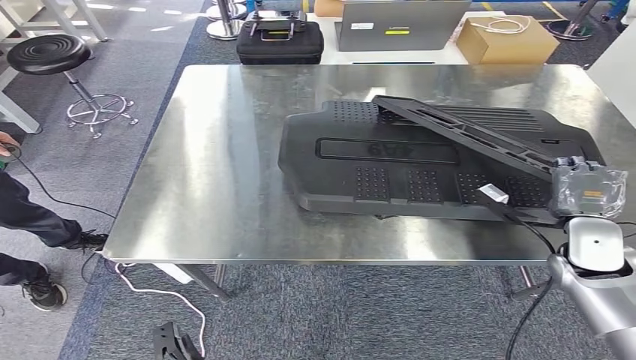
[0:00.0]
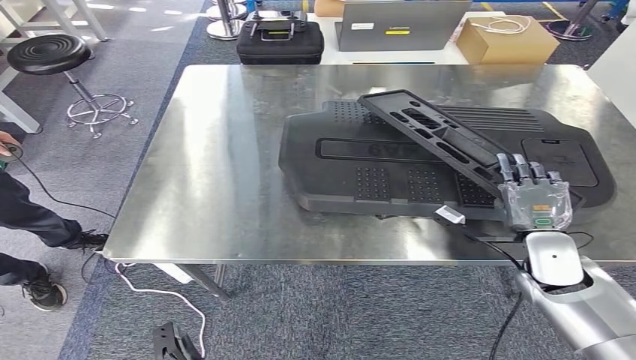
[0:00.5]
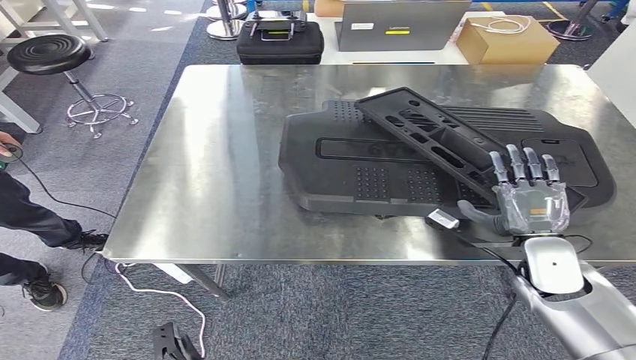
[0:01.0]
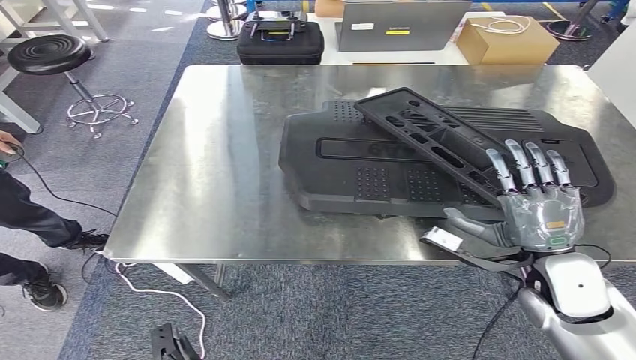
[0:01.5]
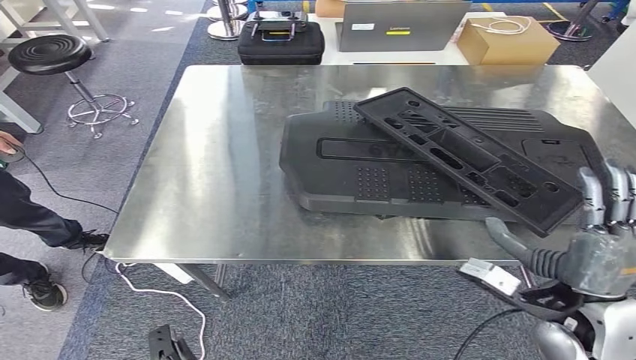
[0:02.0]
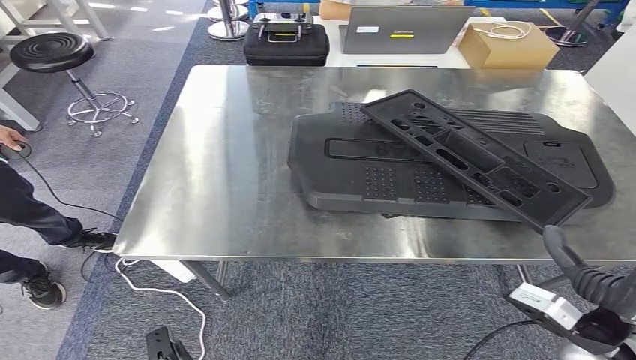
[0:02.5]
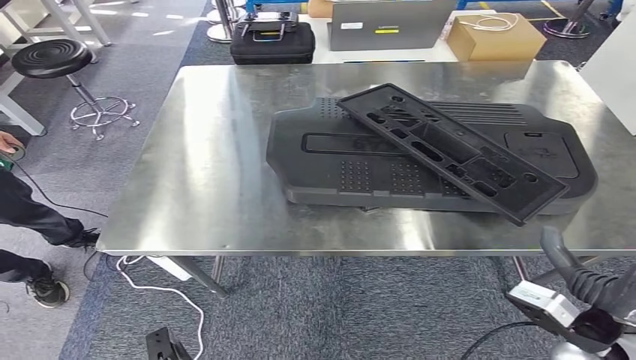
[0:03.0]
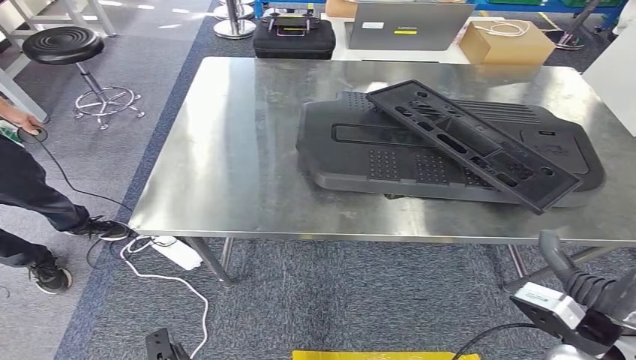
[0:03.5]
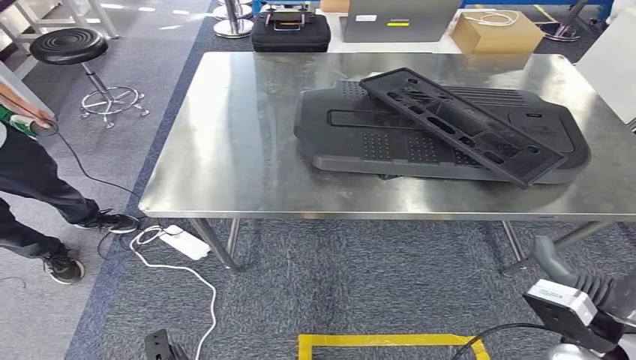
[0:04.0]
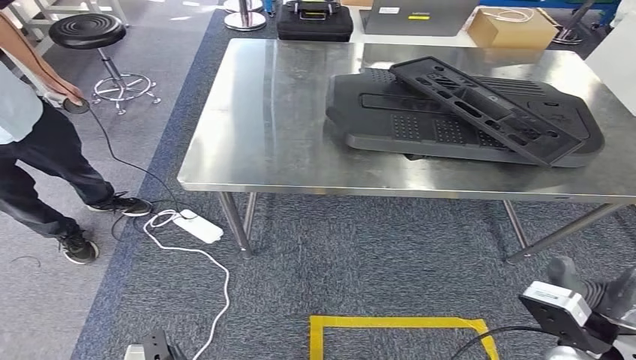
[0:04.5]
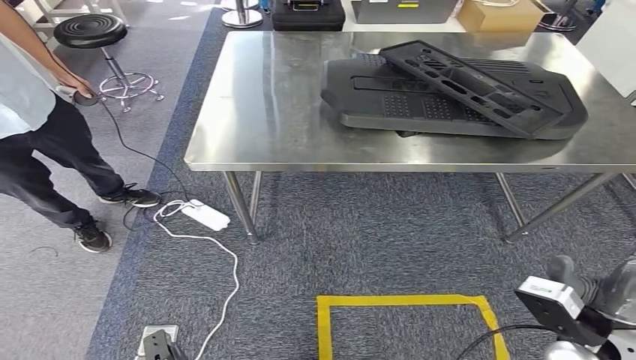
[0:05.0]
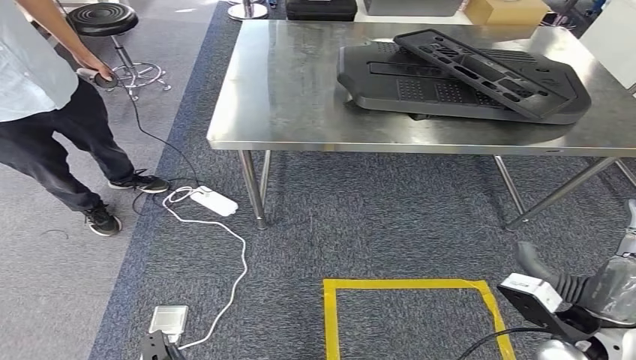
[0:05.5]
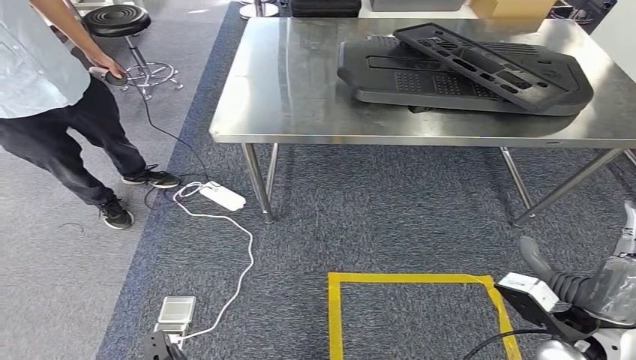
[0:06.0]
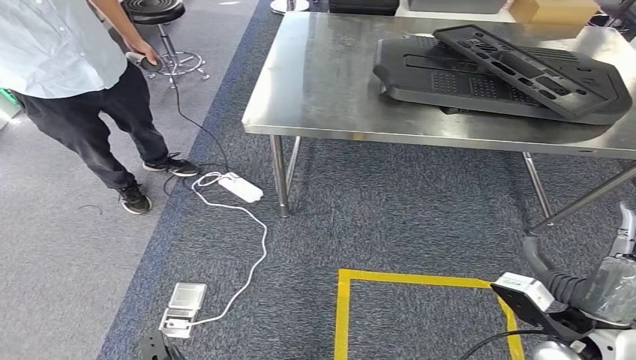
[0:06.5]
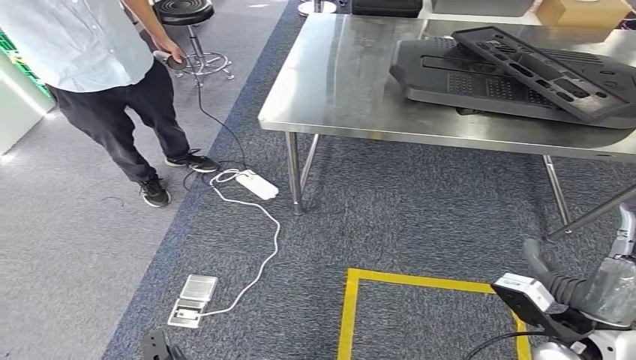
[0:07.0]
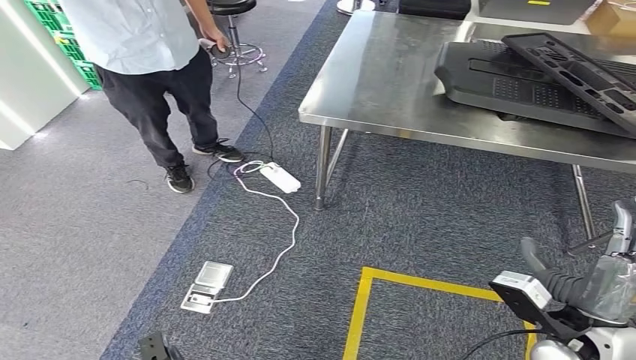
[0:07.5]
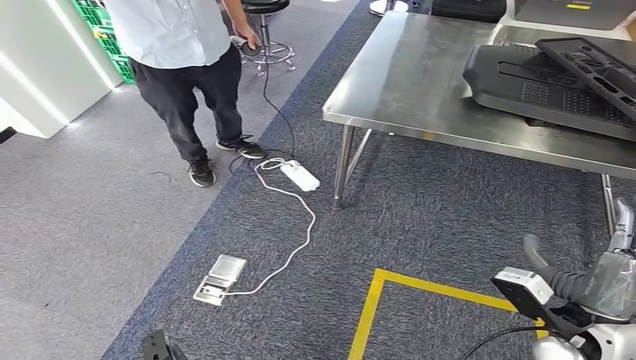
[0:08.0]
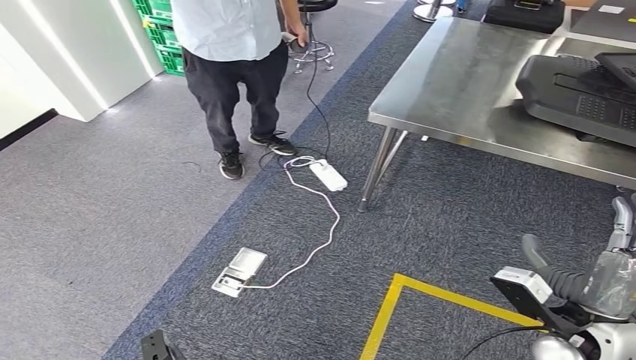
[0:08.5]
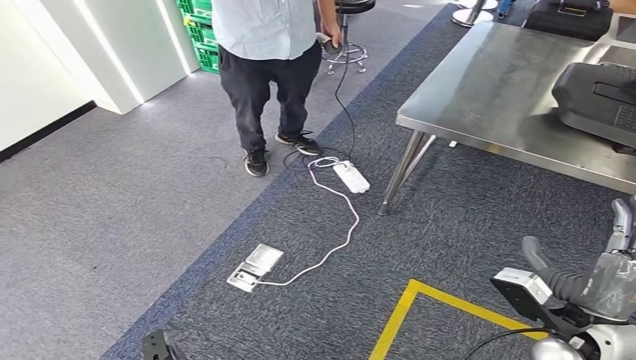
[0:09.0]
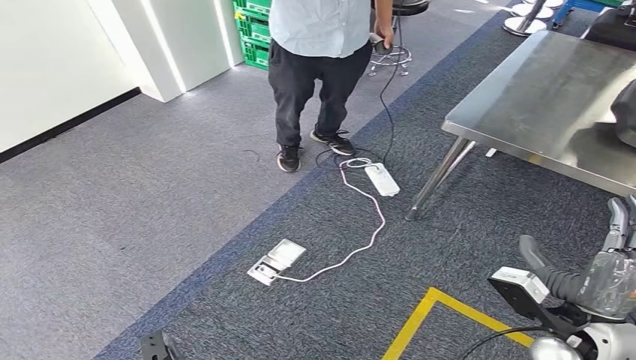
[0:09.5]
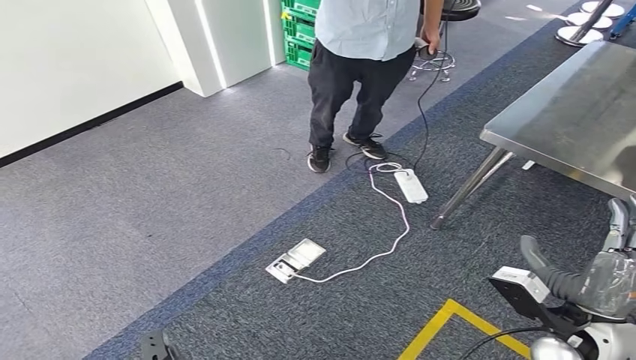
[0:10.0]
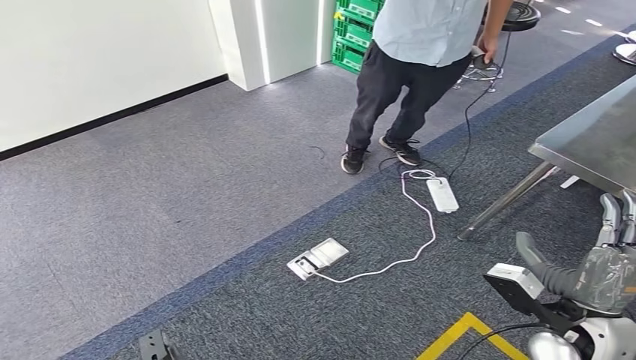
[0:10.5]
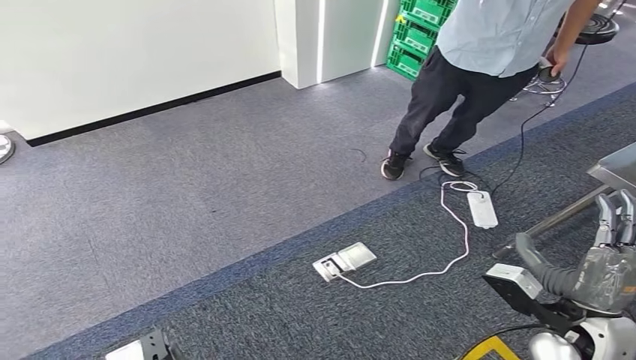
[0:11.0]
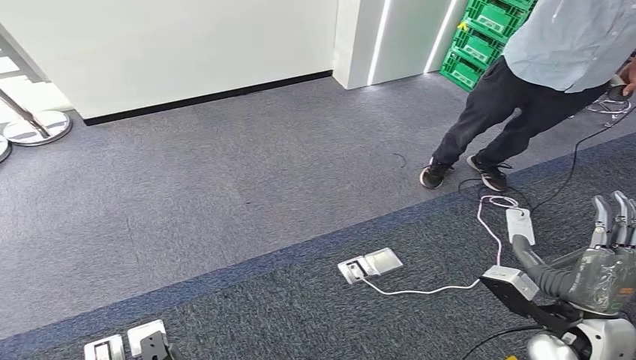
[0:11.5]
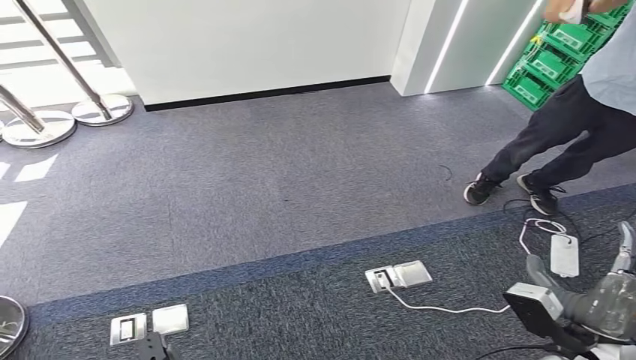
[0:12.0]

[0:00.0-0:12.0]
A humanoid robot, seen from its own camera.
Step, 0:00.0 to 0:02.0: Insert the large material into the corresponding slot on the workbench.
0:00.0 to 0:02.0: The right hand heads backward, covering about 15 cm.

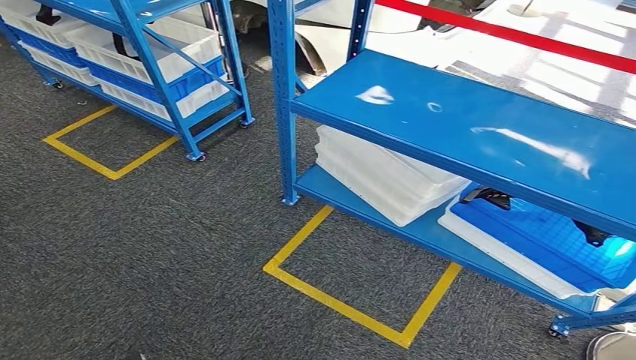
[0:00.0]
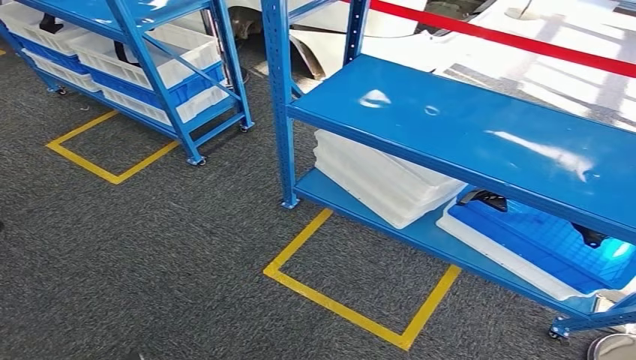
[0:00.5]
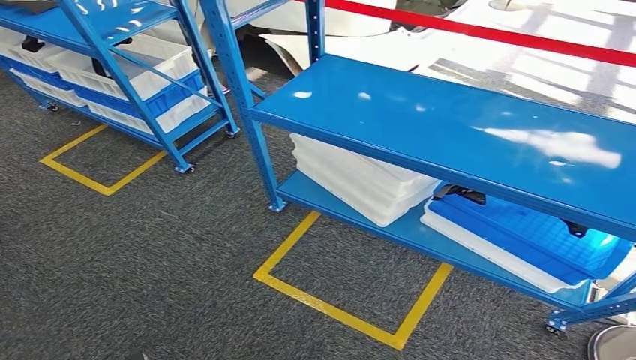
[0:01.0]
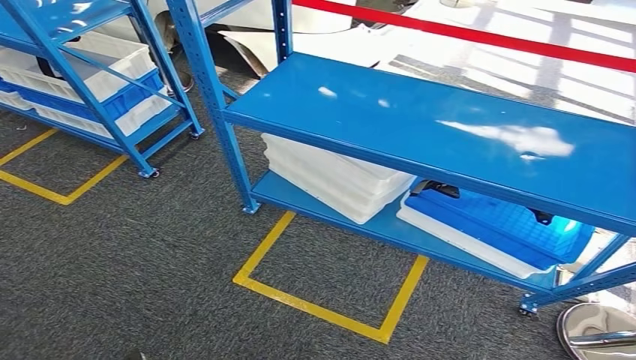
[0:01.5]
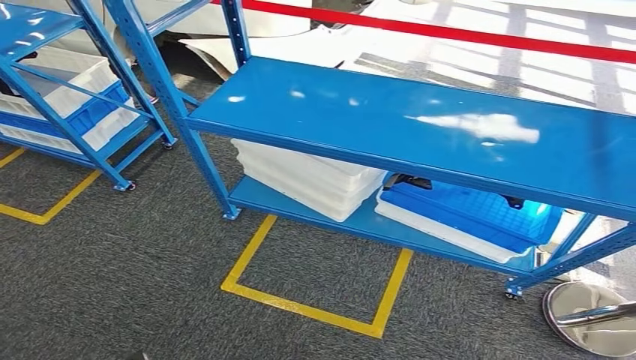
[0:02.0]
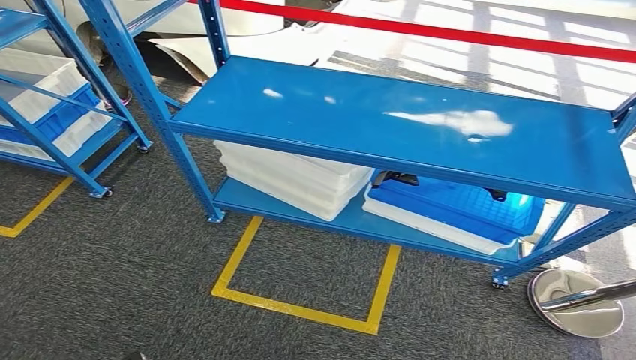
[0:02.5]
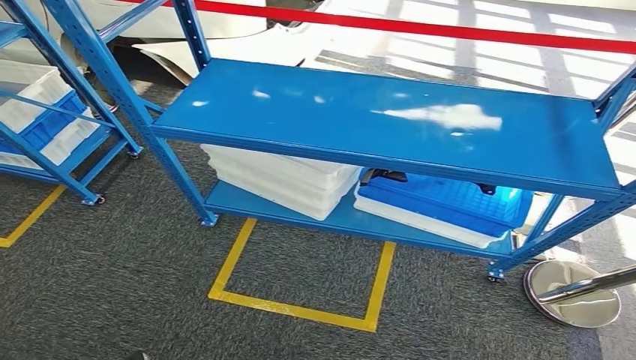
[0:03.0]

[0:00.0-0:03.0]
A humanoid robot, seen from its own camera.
Step, 0:00.0 to 0:03.0: Return to the initial position at the shelf.
